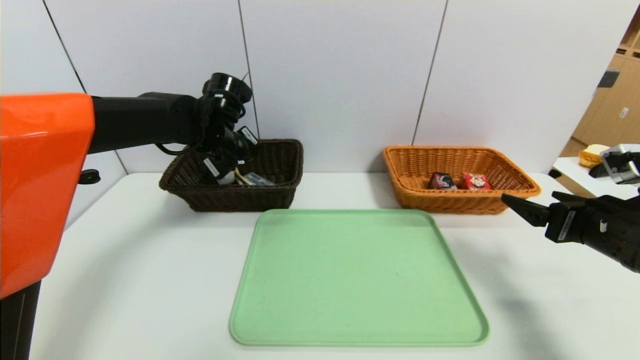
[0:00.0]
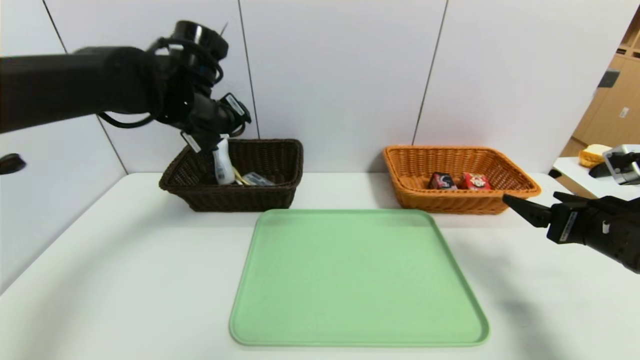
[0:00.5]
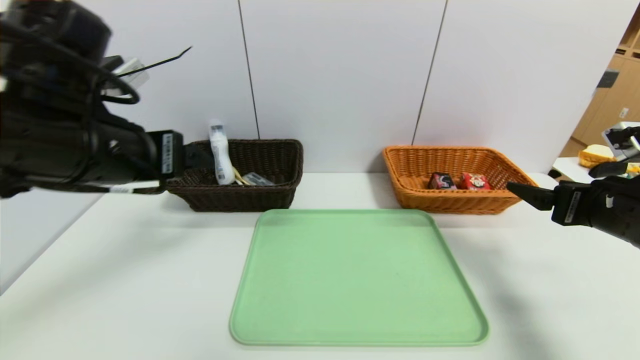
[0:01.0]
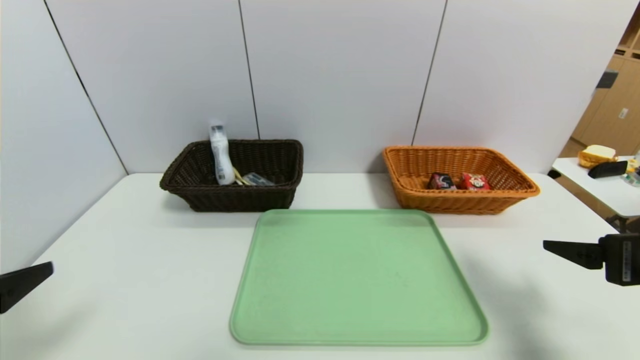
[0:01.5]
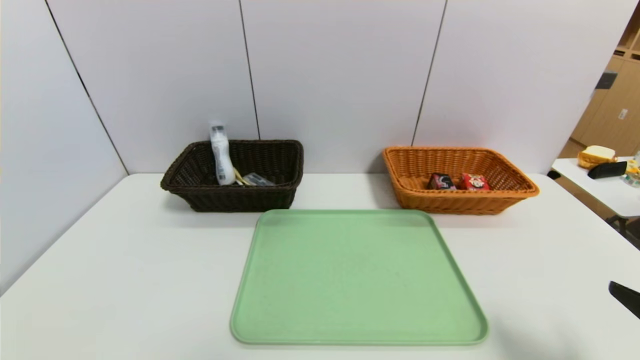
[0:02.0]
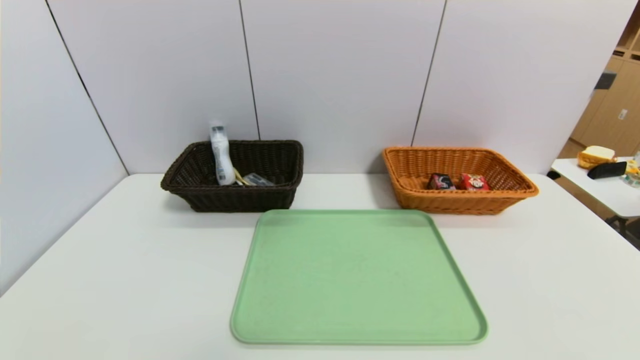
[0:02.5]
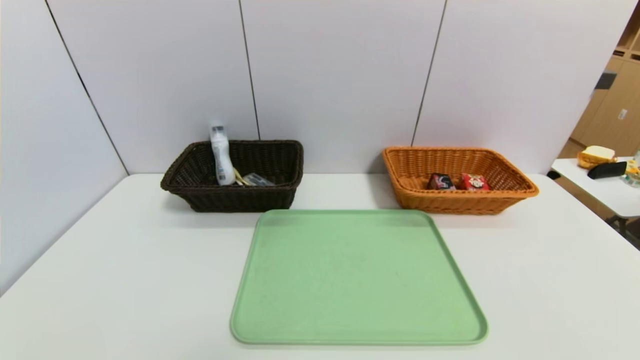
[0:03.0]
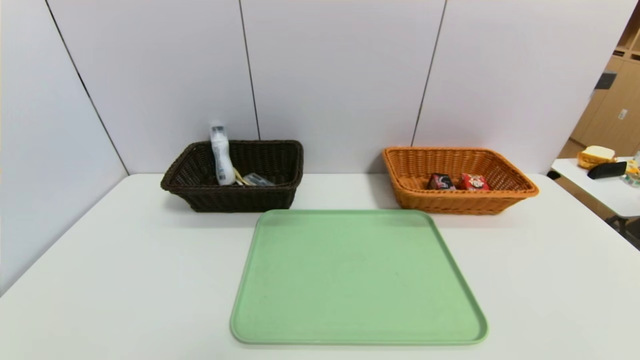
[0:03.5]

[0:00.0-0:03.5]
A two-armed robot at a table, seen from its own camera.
Task of the whole recording: place the food in the right basket with the right gripper, and place the non food items in the left basket with the left gripper.
0:00.0 to 0:02.0: The right gripper is displaced backward by approximately 15 cm, while the left gripper shifts roughly 50 cm backward, and opens.
0:02.0 to 0:03.5: The right gripper travels downward and backward by about 15 cm.

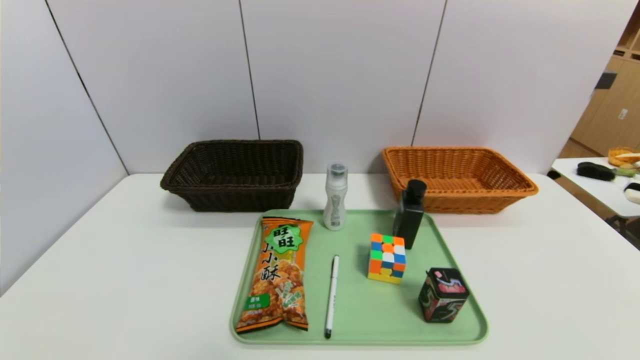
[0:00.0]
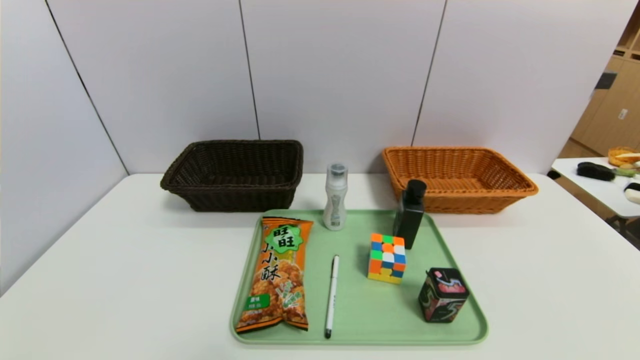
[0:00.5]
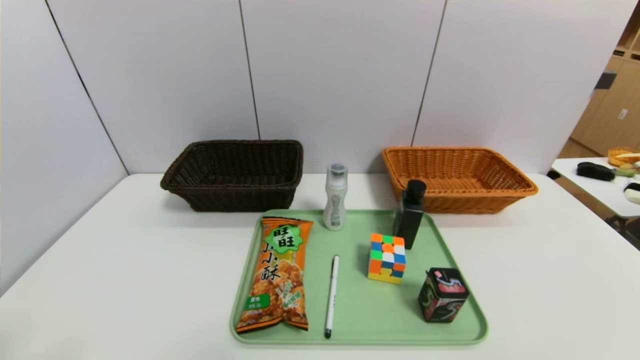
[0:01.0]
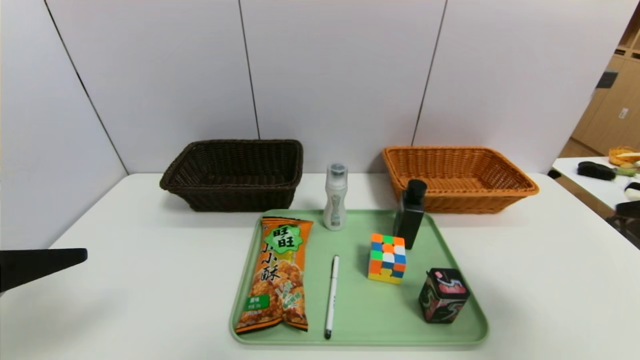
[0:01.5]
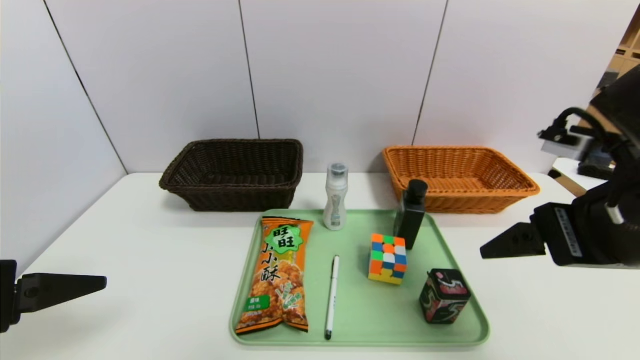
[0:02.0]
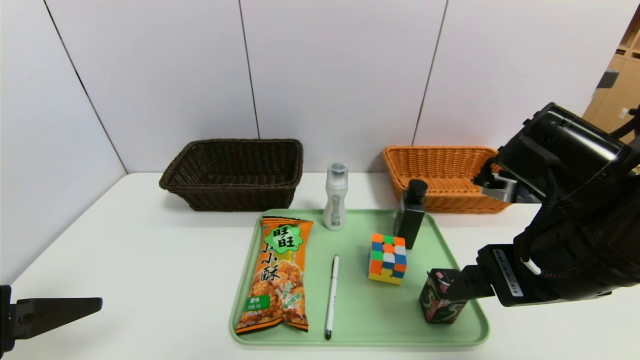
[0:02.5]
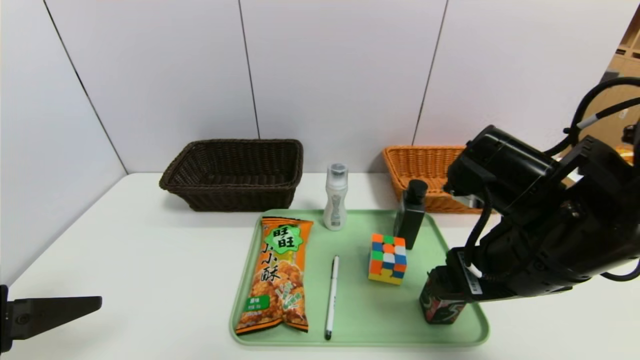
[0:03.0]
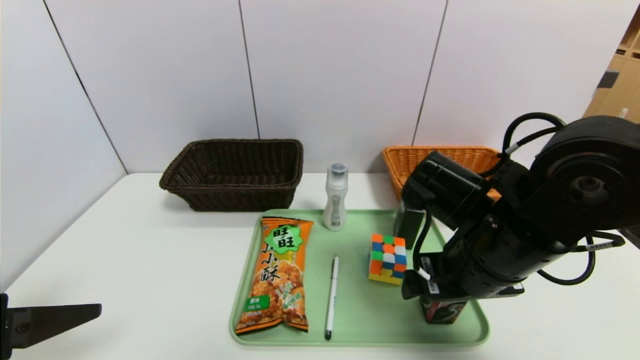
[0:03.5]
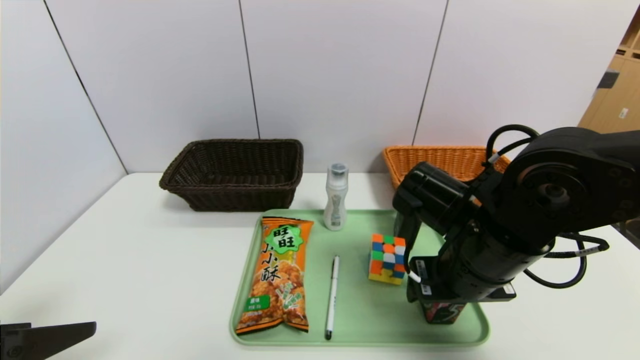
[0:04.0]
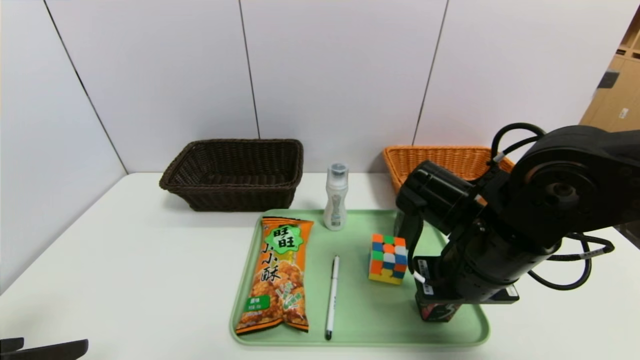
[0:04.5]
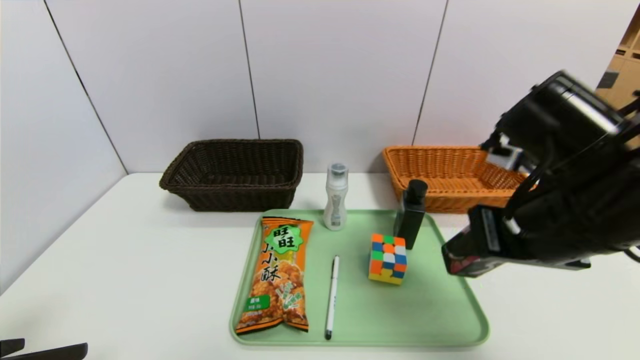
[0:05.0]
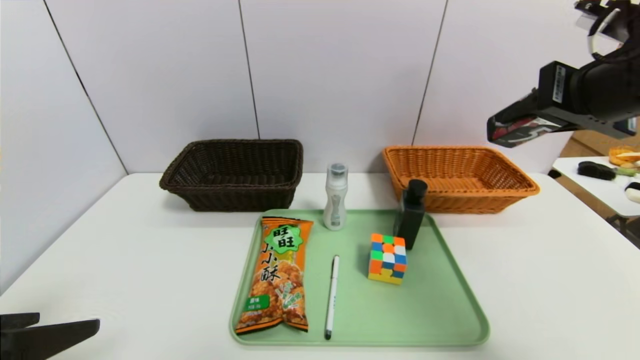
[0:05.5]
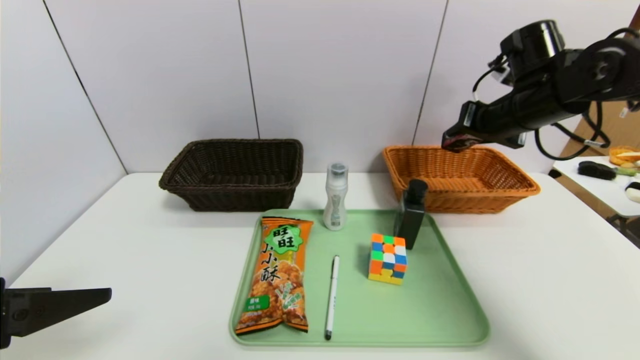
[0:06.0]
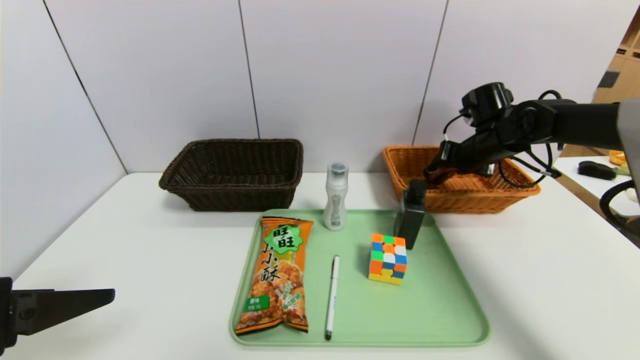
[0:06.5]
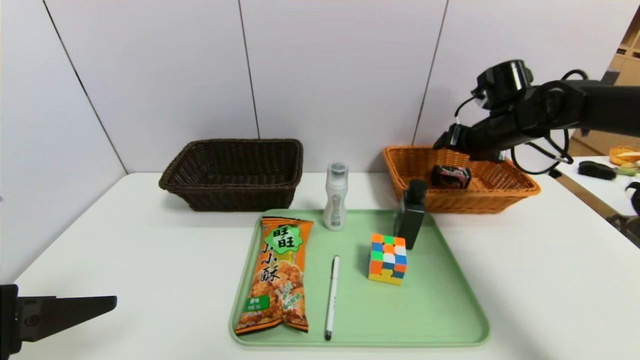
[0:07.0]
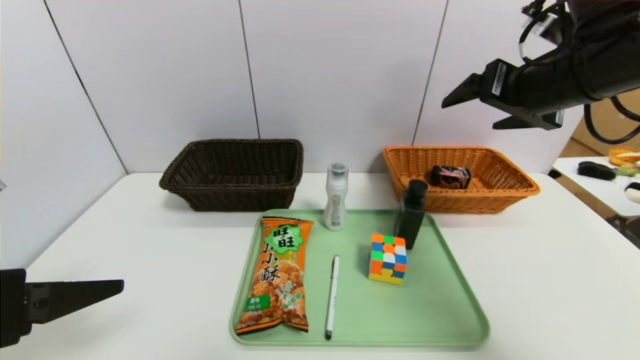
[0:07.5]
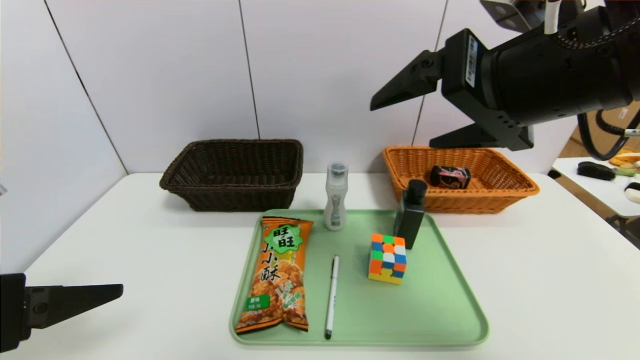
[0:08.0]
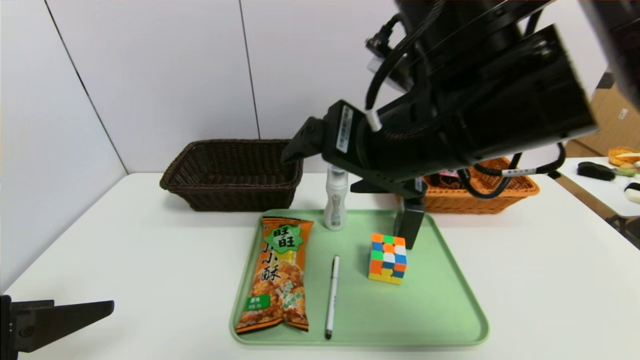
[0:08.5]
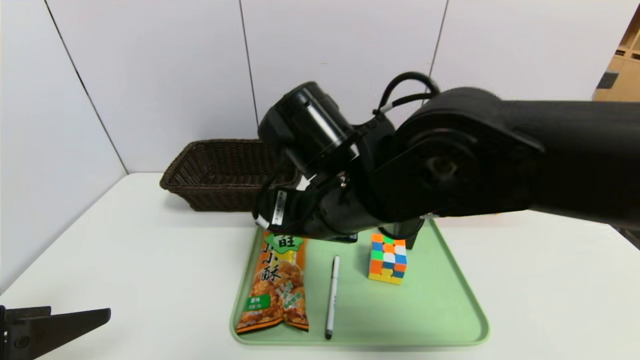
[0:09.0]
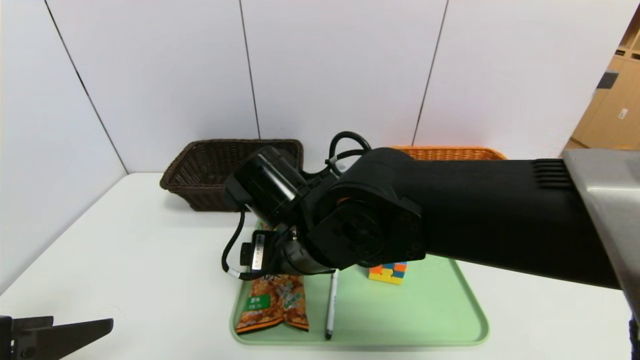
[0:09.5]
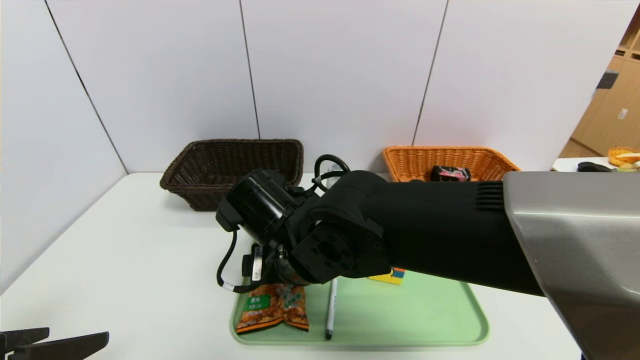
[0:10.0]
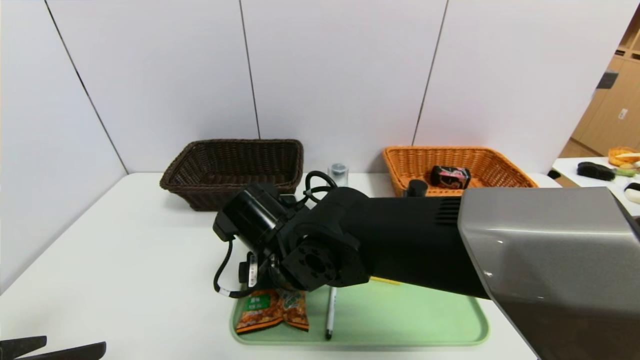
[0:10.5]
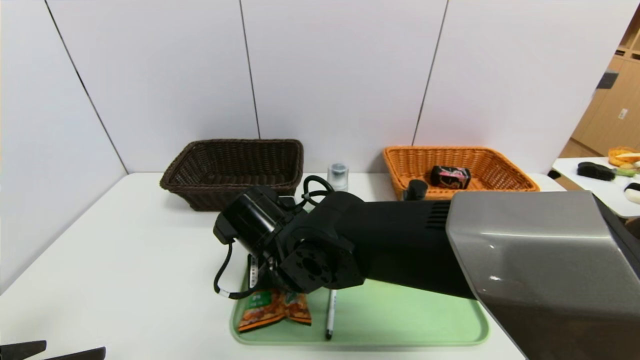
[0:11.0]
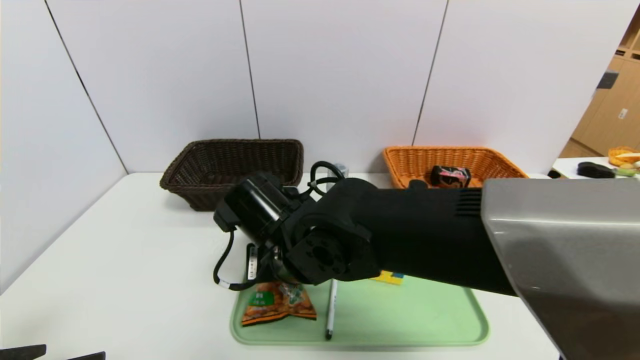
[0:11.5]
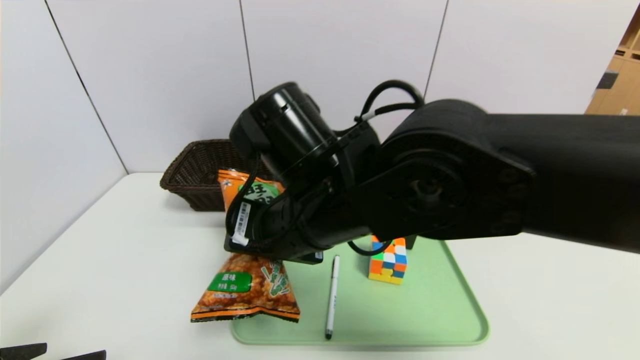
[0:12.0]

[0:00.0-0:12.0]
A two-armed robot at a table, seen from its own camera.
Task of the whole recording: place the food in the right basket with the right gripper, and place the non food items in the left basket with the left gripper.
Step, 0:00.0 to 0:07.0: Grasp the square chewing gum and put it in the right basket.
0:00.0 to 0:02.0: The left gripper heads upward and forward, covering approximately 20 cm; the right gripper is displaced upward, forward and to the left by about 30 cm.
0:02.0 to 0:04.0: The right gripper moves downward, to the left and forward, roughly 15 cm.
0:04.0 to 0:06.0: The right gripper goes roughly 25 cm forward, to the right and upward, and closes.
0:06.0 to 0:08.0: The right gripper heads backward, to the left and upward, covering approximately 25 cm, and opens its fingers.
0:08.0 to 0:10.0: The right gripper travels downward and to the left by approximately 30 cm.
0:10.0 to 0:12.0: The right gripper moves upward, about 10 cm, and closes its fingers.

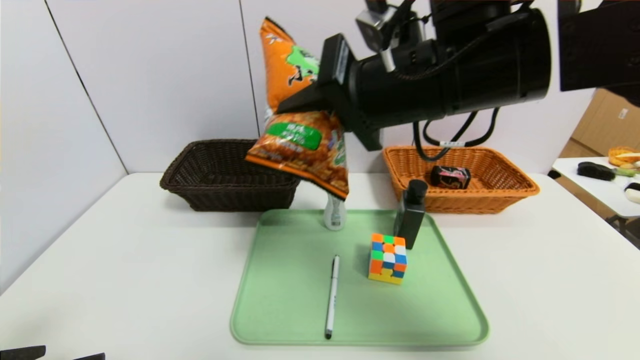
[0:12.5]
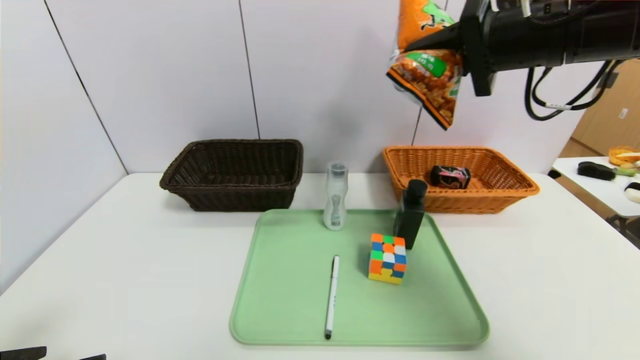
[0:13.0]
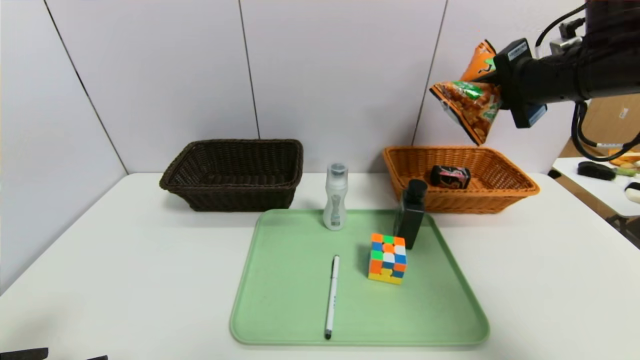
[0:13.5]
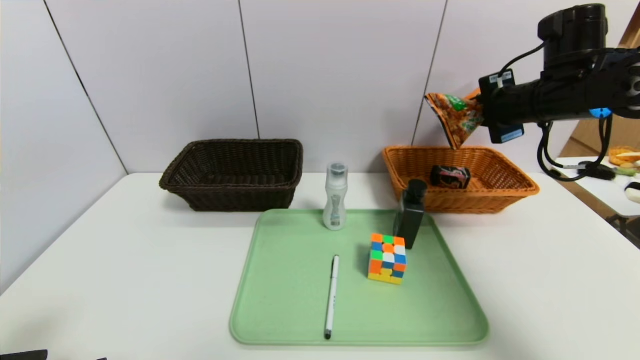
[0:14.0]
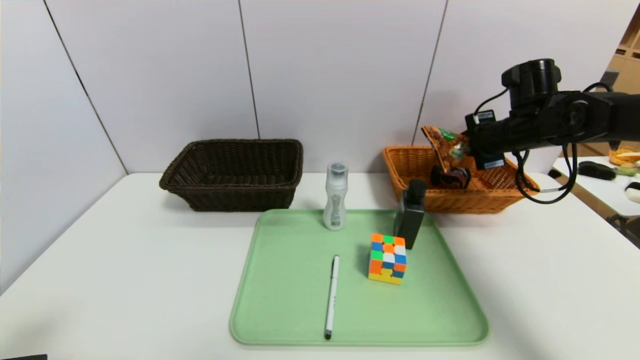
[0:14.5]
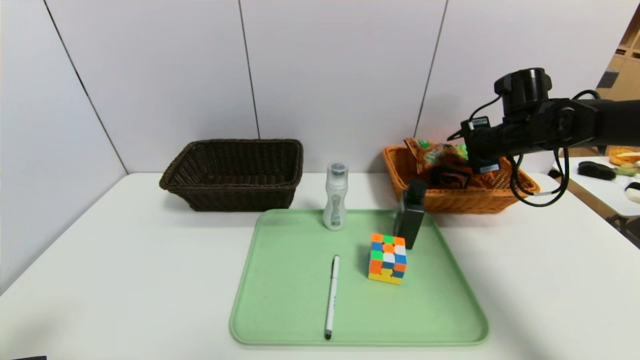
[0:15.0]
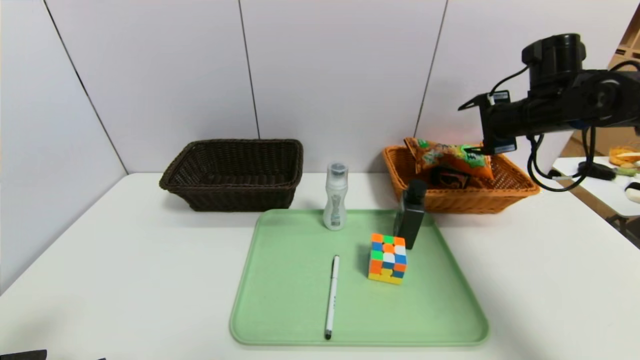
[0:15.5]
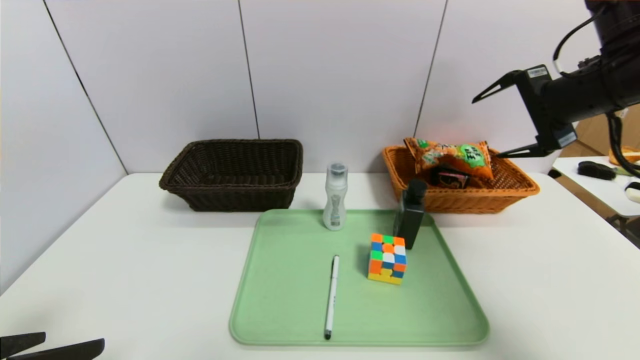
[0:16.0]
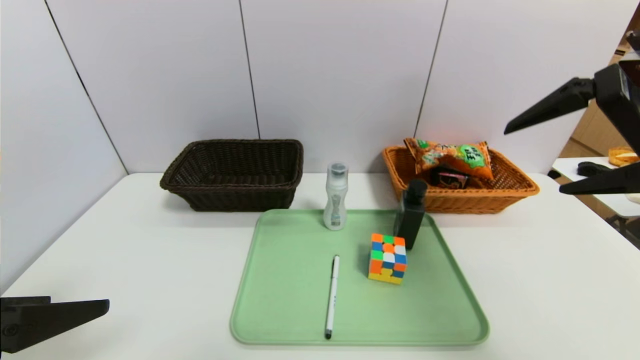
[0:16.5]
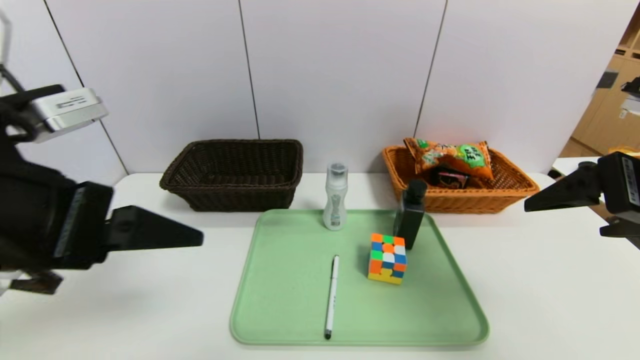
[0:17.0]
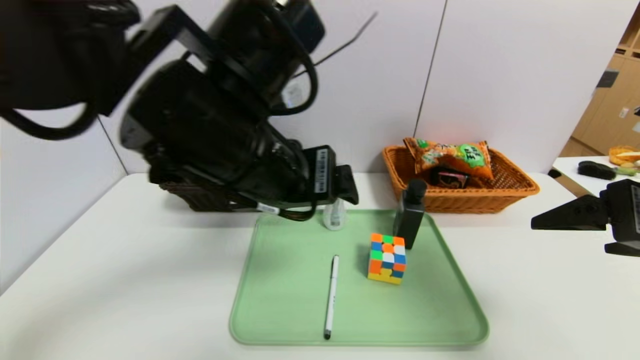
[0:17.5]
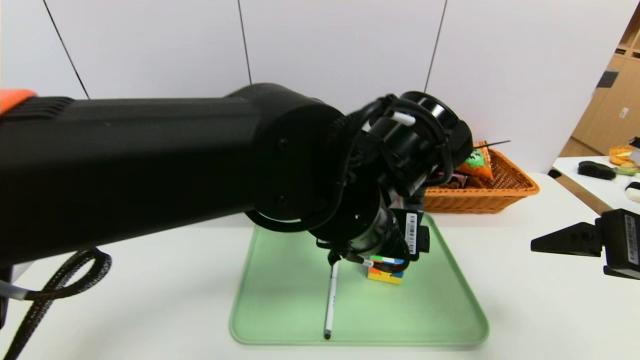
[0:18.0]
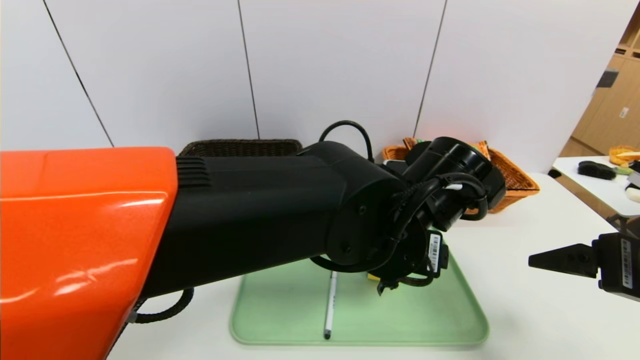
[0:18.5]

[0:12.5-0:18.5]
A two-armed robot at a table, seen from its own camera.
Task of the whole recording: place the food in the right basket with the right gripper, and place the non food items in the left basket with the left gripper.
Step, 0:12.5 to 0:15.0: Grasp the cookie and put it in the right basket.
0:12.5 to 0:14.5: The right gripper is displaced to the right, forward and downward by roughly 30 cm.
0:14.5 to 0:16.5: The right gripper moves backward and upward, approximately 25 cm, and opens up, while the left gripper heads upward, covering about 5 cm.
0:16.5 to 0:18.5: The right gripper shifts about 15 cm downward and backward, while the left gripper shifts approximately 35 cm to the right.
